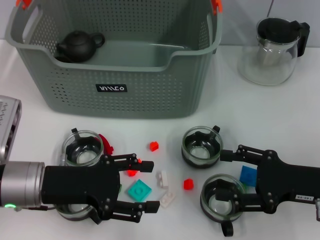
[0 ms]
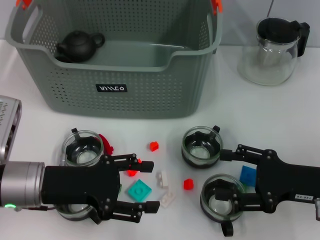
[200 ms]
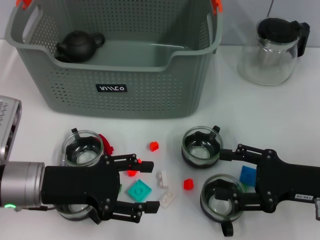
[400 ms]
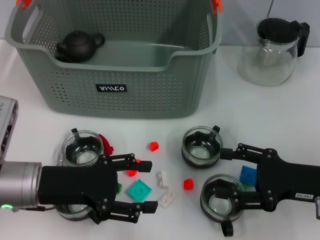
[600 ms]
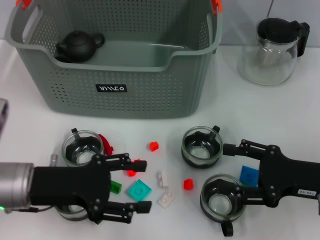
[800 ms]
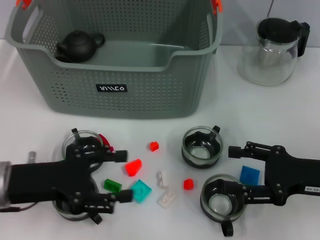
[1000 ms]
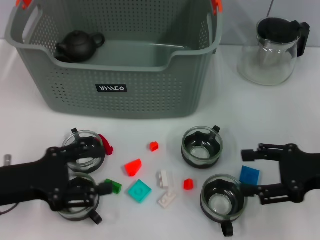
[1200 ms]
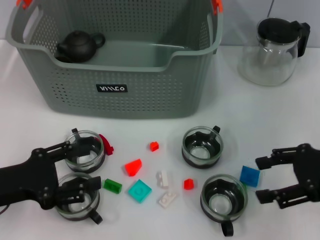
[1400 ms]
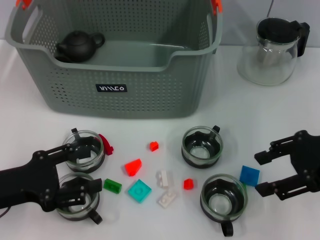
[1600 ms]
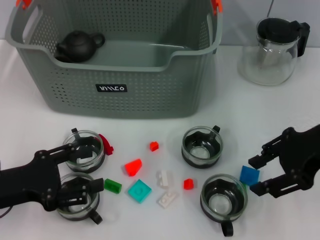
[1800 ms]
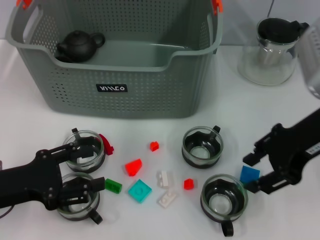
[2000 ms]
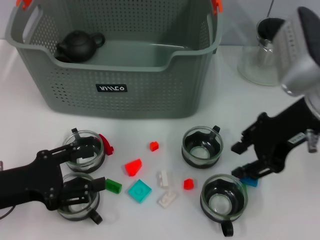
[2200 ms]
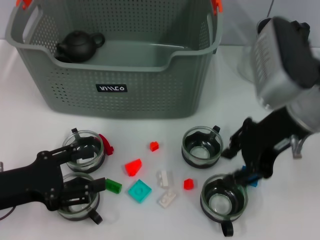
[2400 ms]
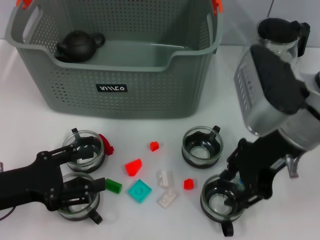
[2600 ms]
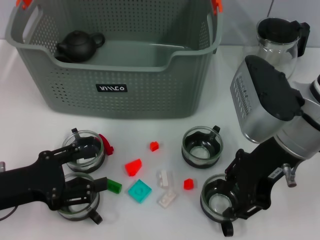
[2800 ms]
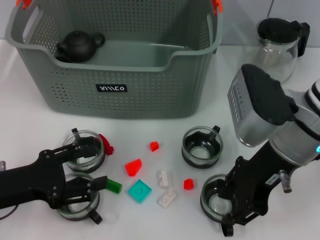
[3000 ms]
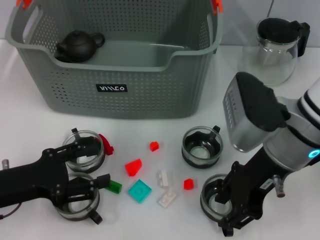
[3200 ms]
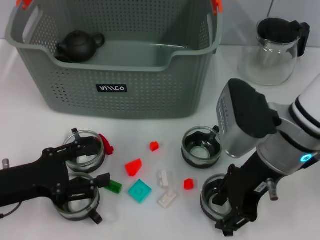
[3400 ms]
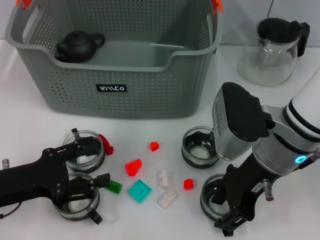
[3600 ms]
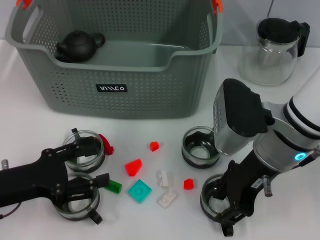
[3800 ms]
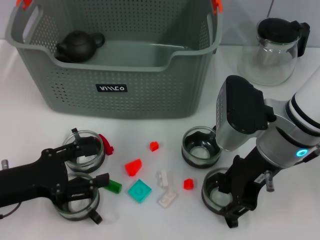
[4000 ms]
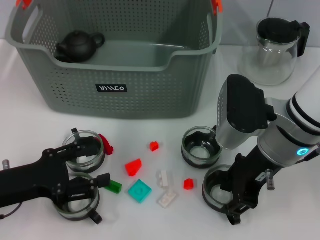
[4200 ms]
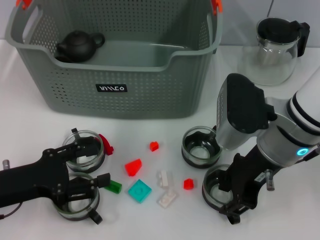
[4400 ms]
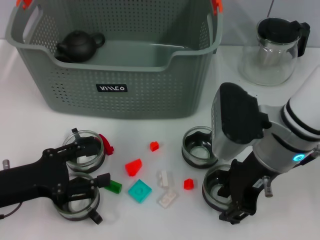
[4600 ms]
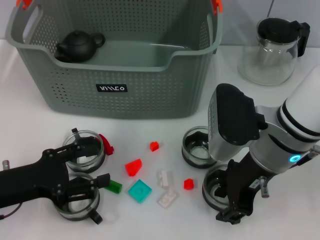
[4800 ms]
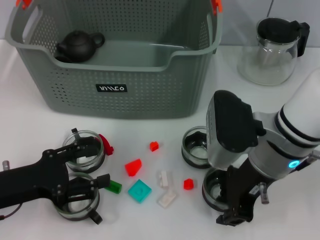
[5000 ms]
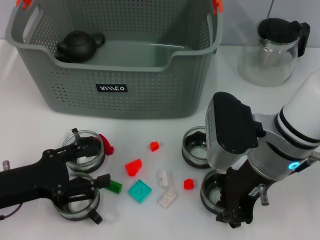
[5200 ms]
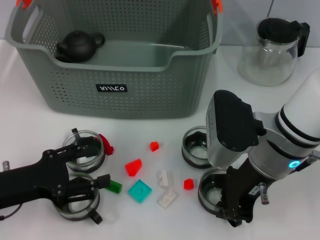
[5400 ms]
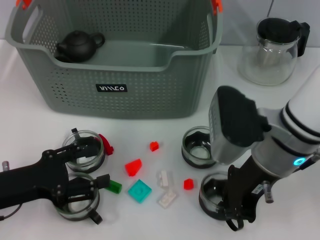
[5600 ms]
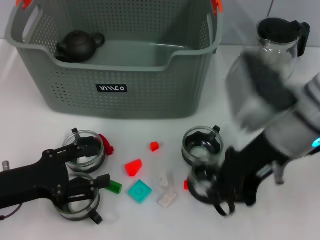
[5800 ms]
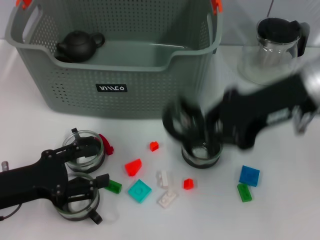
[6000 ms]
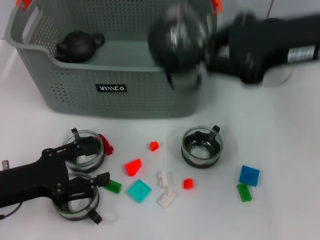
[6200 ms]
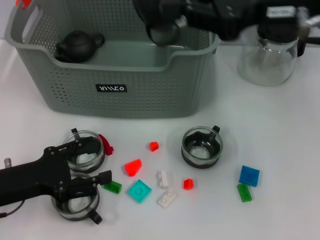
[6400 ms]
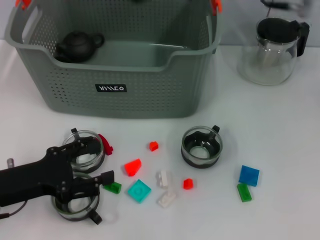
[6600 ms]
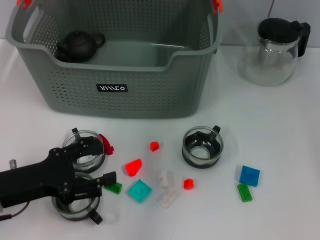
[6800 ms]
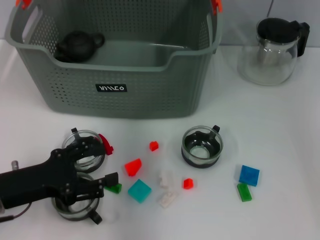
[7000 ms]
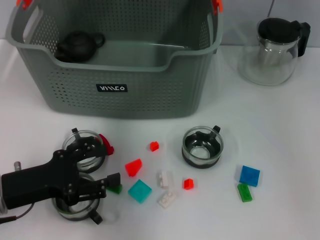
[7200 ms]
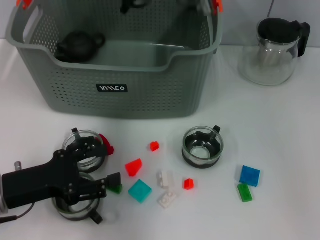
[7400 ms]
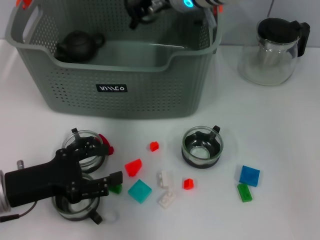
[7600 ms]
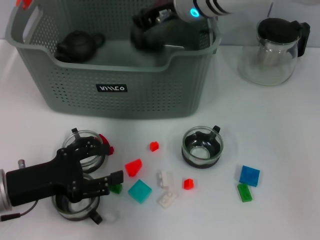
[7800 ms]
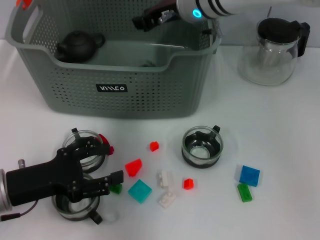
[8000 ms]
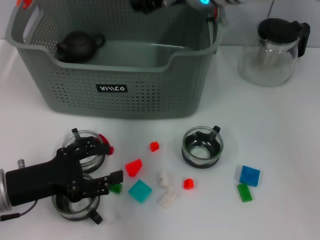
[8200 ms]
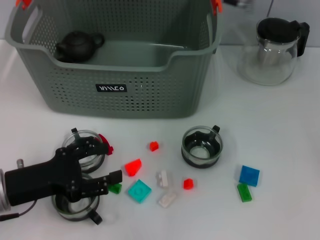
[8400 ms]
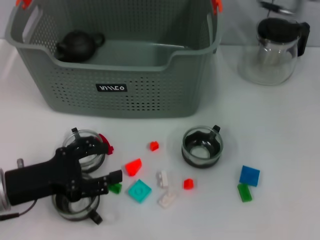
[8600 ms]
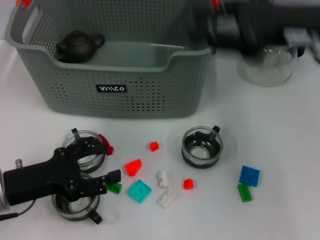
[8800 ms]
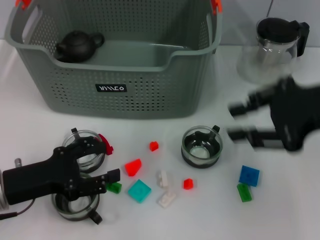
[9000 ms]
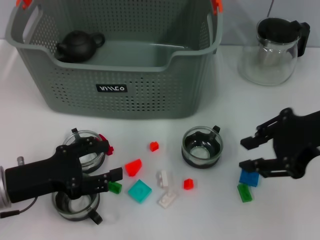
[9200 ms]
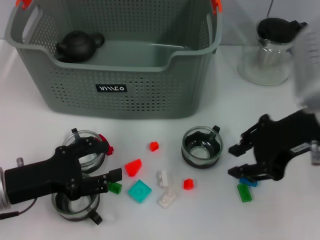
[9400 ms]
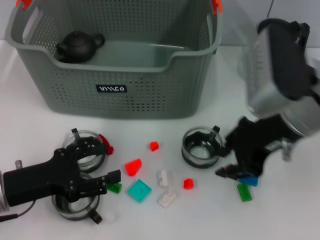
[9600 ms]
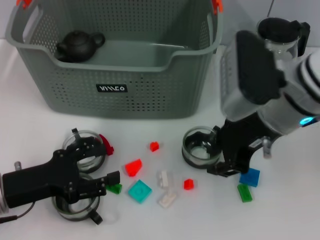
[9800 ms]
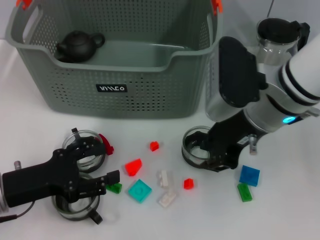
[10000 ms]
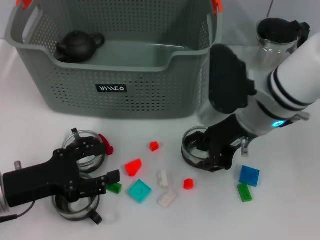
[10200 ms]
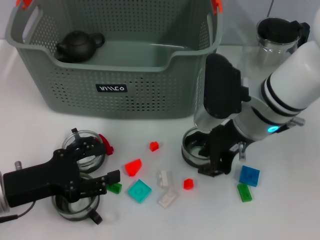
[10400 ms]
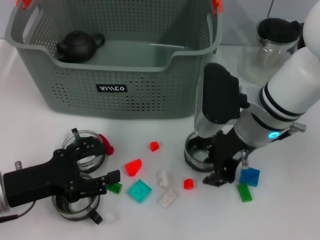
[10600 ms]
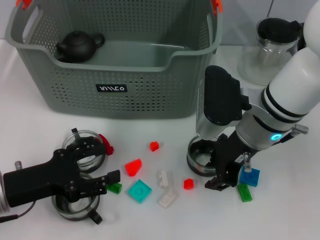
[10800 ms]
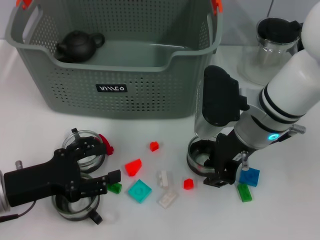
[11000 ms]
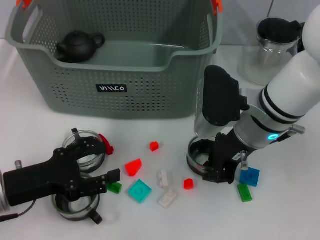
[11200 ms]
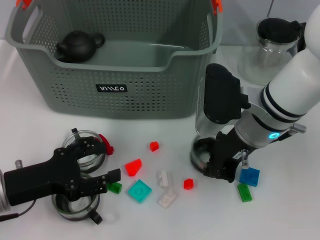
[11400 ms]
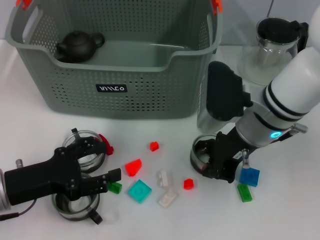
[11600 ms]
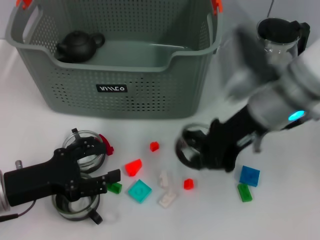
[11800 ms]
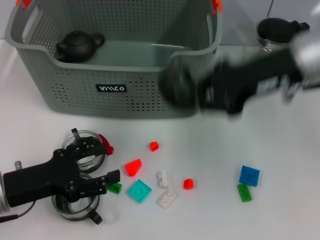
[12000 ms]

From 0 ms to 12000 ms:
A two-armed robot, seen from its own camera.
Task of the whole recording: pick up the teacup on the table and place it into the storage bin, pick up the block on the table and place it into the storage bin.
Step, from 0 ms to 5400 ms: Grasp the cup with right gripper.
Step, from 5600 ms to 7800 ms: Place the cup in the storage box with right gripper.
Step, from 8000 ms to 11400 ms: Grasp the cup with right gripper.
From 0 ms to 1600 ms: The left gripper goes some 5 cm to the left. The right gripper is displaced upward by roughly 10 cm.
From 1600 ms to 3000 ms: The right gripper shifts approximately 10 cm to the left, and closes.
From 3000 ms to 4400 ms: The grippers make only small movements.
From 4400 ms to 6000 ms: The right gripper moves upward, roughly 10 cm, and closes up.
From 6000 ms to 7600 ms: The right gripper travels forward and to the left by some 20 cm.
From 7600 ms to 9000 ms: The right gripper goes roughly 25 cm to the right and backward, and opens up.
From 9000 ms to 10400 ms: The right gripper shifts approximately 15 cm to the left, downward and forward.
From 10400 ms to 12000 ms: The right gripper is displaced upward and to the right by approximately 10 cm, and closes up.

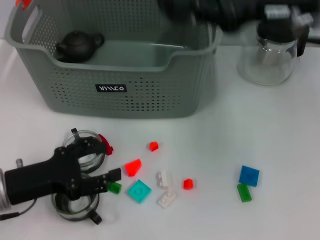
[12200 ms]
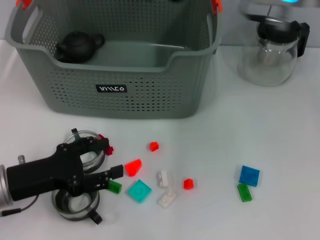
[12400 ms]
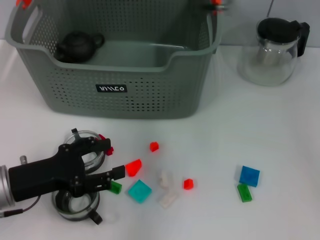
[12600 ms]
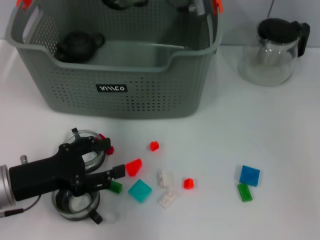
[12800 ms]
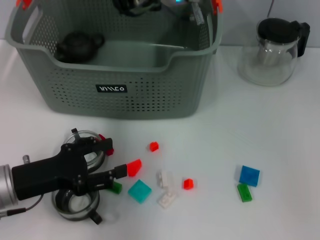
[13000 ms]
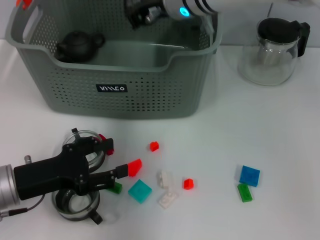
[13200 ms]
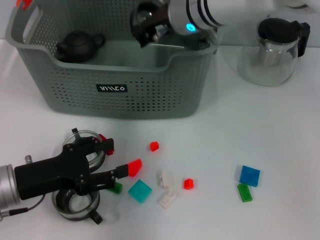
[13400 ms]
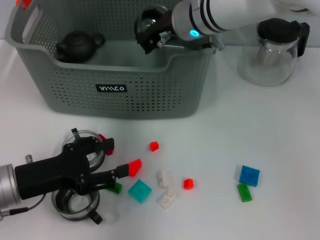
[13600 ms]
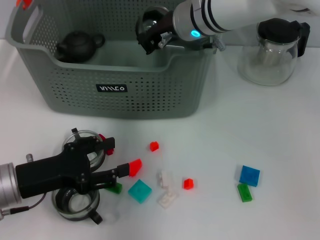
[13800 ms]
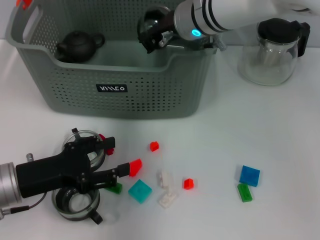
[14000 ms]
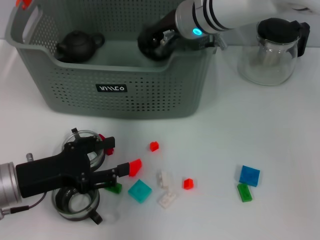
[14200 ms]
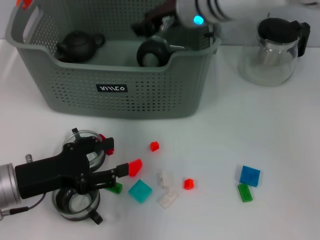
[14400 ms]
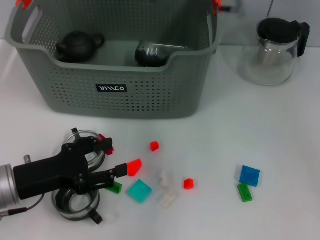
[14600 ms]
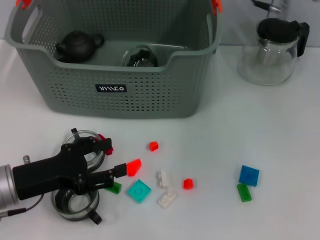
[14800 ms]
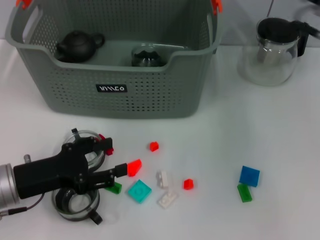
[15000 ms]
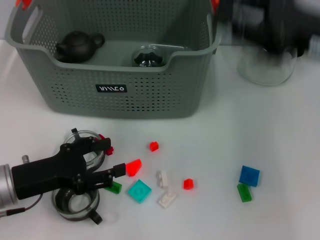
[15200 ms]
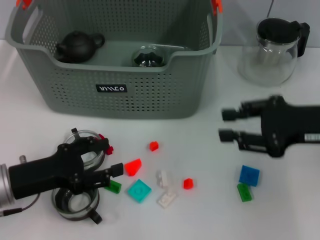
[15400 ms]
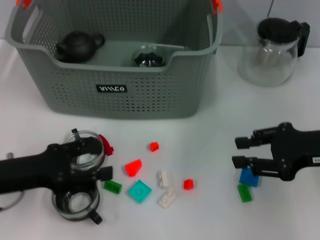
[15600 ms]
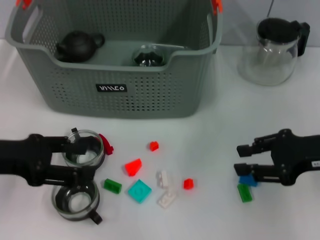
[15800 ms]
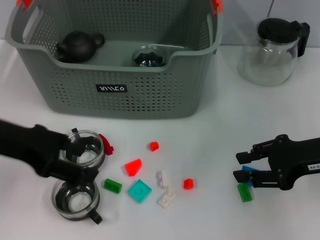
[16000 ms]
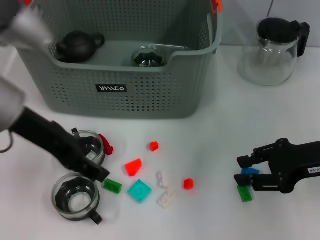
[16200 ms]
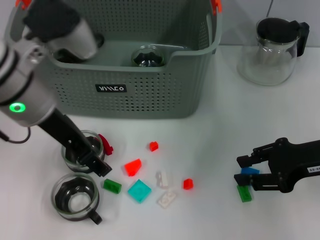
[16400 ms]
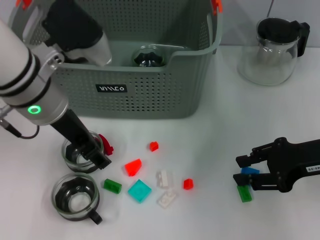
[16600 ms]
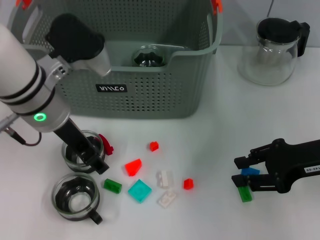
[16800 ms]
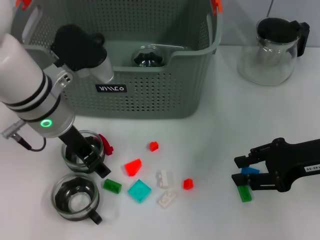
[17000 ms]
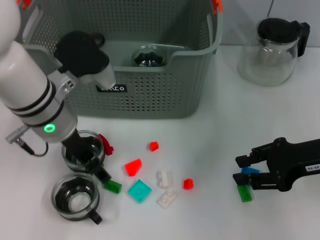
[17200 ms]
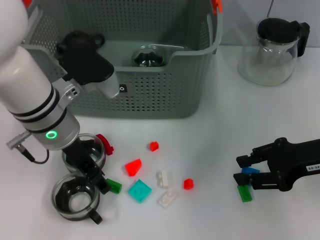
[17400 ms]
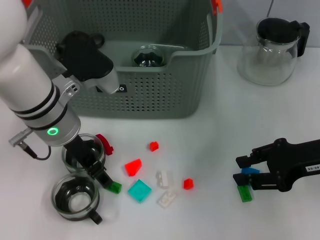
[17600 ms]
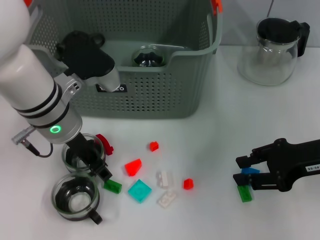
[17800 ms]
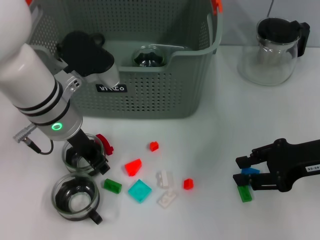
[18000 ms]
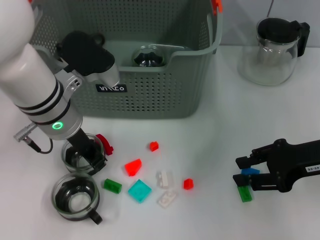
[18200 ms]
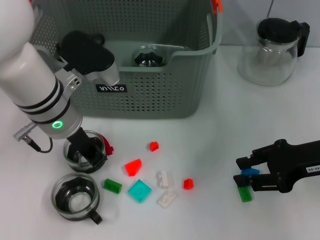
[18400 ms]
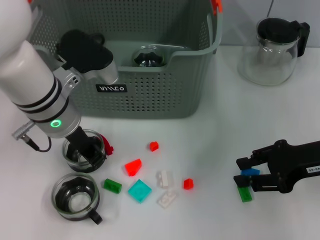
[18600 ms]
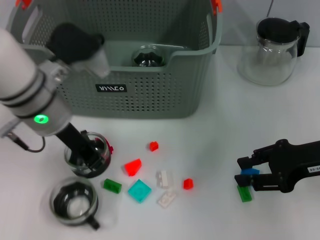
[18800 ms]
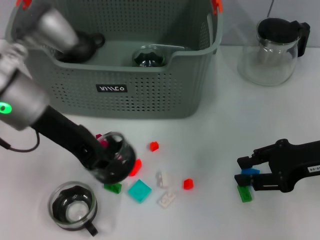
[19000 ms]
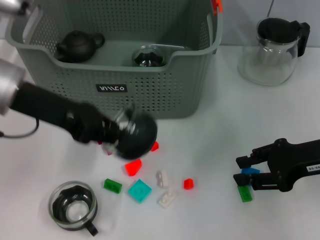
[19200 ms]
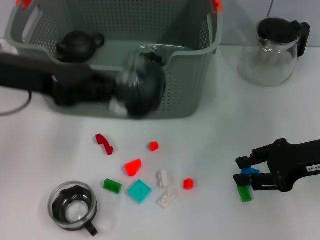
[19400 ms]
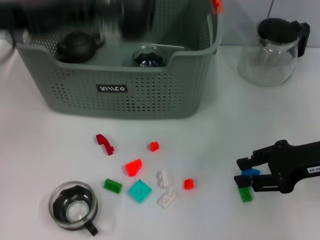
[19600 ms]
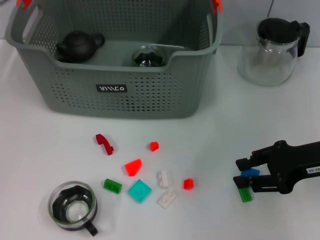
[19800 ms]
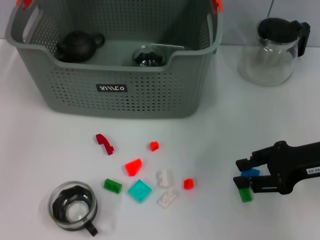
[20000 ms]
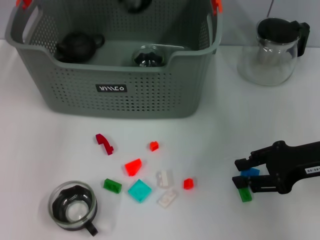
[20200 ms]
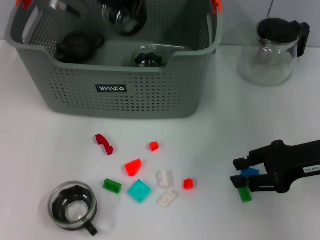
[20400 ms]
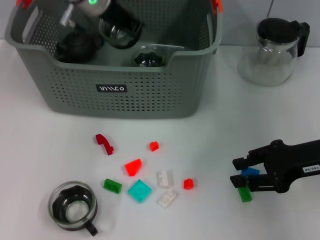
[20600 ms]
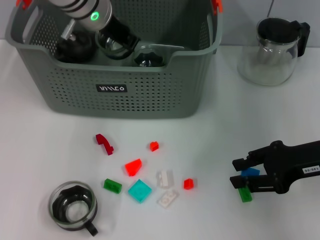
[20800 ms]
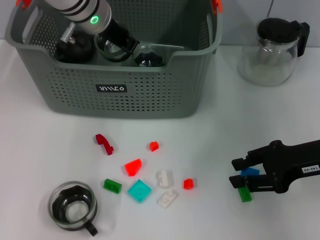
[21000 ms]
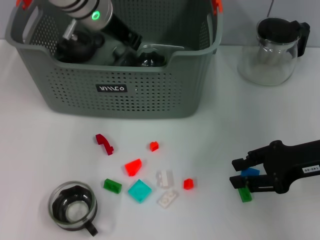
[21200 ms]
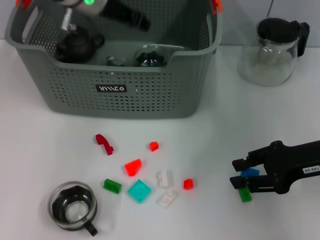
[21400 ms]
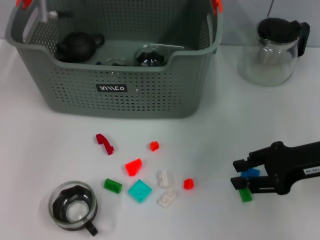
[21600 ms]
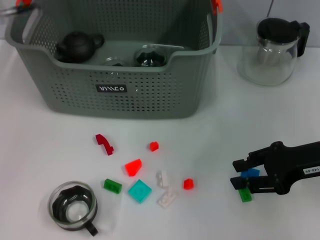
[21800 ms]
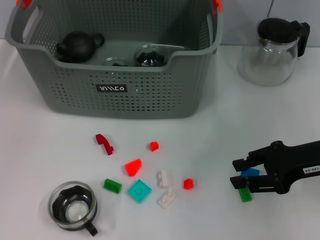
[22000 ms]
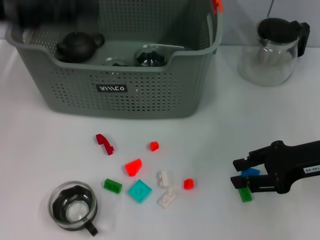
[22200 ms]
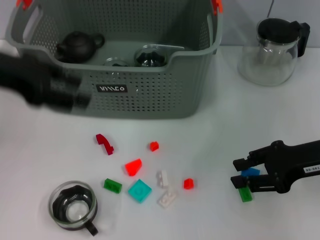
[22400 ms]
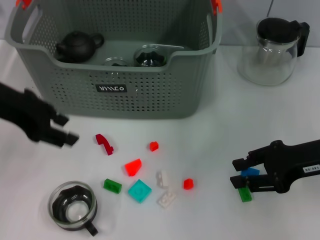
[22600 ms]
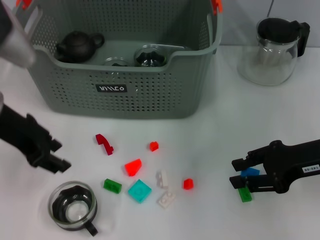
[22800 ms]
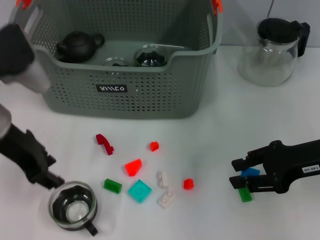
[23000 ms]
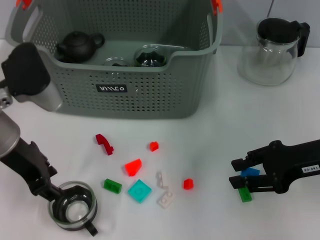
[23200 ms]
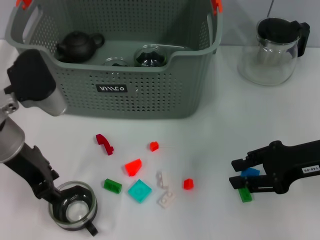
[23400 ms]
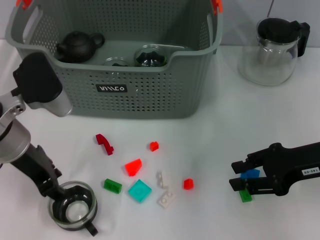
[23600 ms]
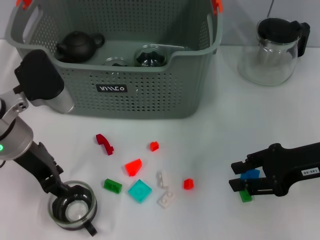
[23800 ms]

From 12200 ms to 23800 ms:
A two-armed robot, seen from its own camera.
Task of the whole recording: pick up the teacup on the table and place it into the storage bin, pick up the block on the table and place it into the storage bin.
Step, from 12200 ms to 14400 ms: Place the cup in the storage box with right gripper.
Step, from 14600 ms to 18200 ms: Grasp the cup with left gripper.
Step, from 18600 ms to 21200 ms: Place the cup in the storage box with left gripper.
From 12200 ms to 13600 ms: The right gripper travels to the left, forward and downward by approximately 20 cm.
From 13600 ms to 15000 ms: The right gripper is displaced to the right and backward by about 20 cm, and opens its fingers.
From 15000 ms to 16600 ms: The left gripper shifts roughly 20 cm upward, to the right and forward, while the right gripper travels downward, backward and to the right by approximately 15 cm.
From 16600 ms to 18000 ms: The left gripper moves downward, some 5 cm.
From 18000 ms to 19400 ms: The left gripper shifts approximately 10 cm to the left and upward, and closes its fingers.
From 19400 ms to 21000 ms: The left gripper moves forward and to the right, about 20 cm.
From 21000 ms to 22400 ms: The left gripper shifts about 20 cm backward and to the left, and opens.
From 22400 ms to 23800 ms: The left gripper heads downward and to the right, covering about 10 cm.
